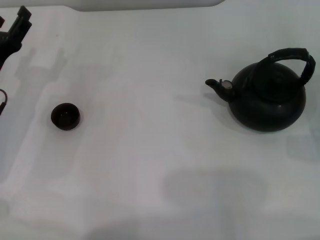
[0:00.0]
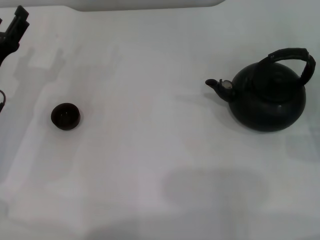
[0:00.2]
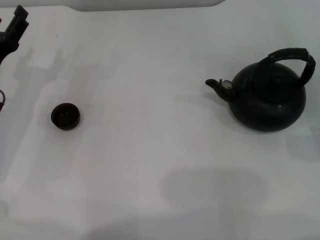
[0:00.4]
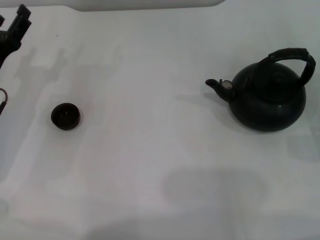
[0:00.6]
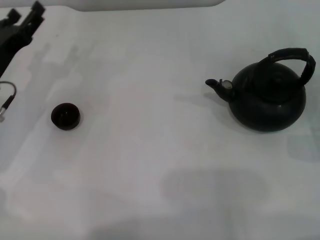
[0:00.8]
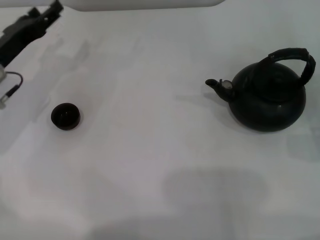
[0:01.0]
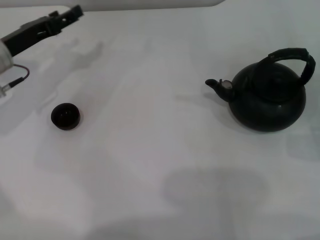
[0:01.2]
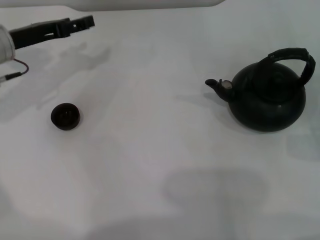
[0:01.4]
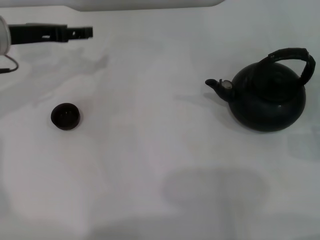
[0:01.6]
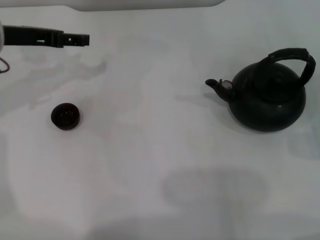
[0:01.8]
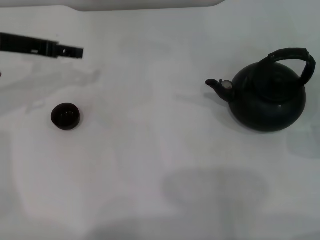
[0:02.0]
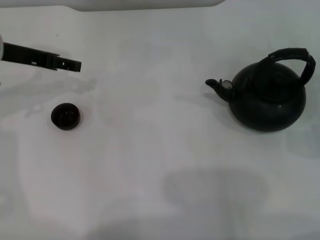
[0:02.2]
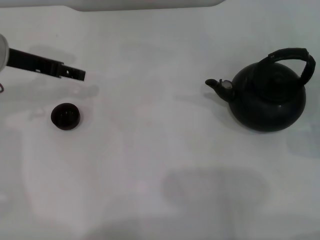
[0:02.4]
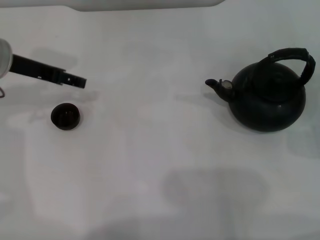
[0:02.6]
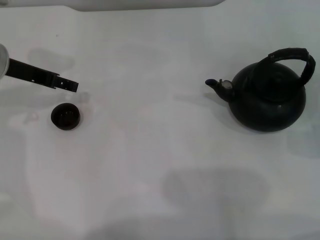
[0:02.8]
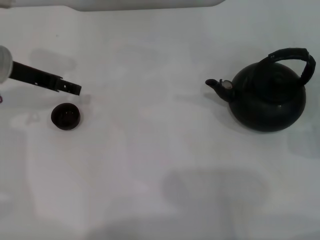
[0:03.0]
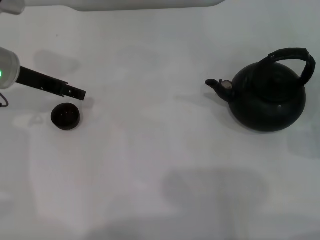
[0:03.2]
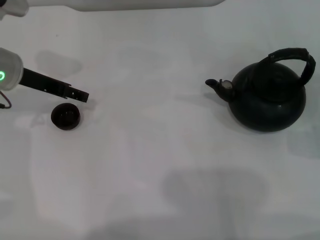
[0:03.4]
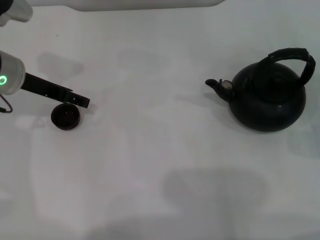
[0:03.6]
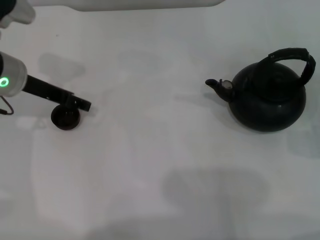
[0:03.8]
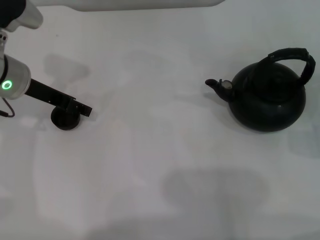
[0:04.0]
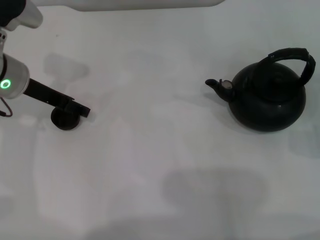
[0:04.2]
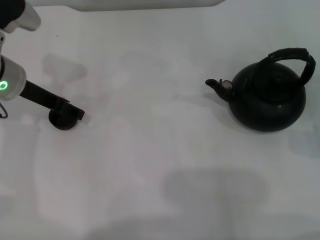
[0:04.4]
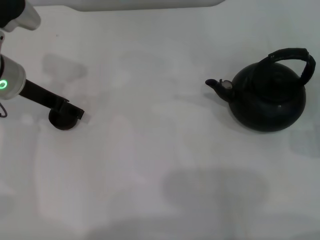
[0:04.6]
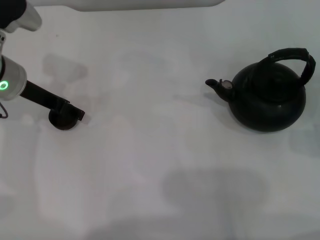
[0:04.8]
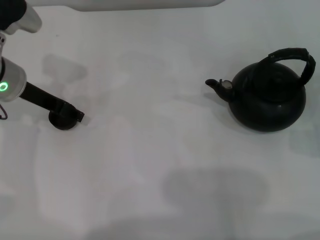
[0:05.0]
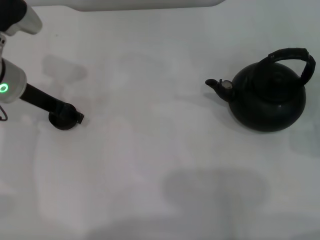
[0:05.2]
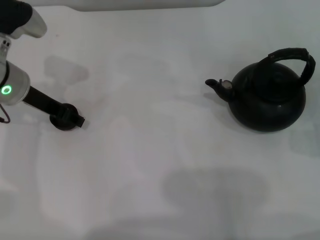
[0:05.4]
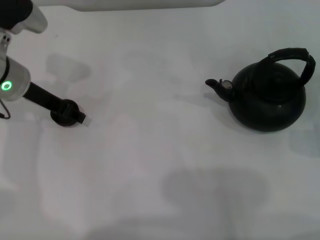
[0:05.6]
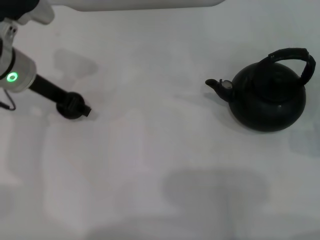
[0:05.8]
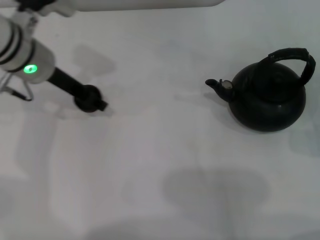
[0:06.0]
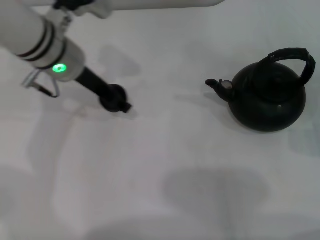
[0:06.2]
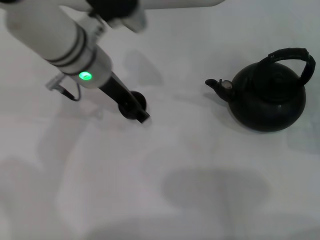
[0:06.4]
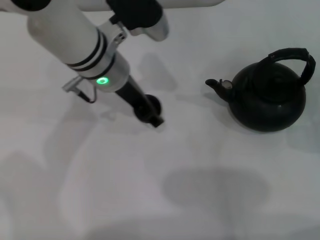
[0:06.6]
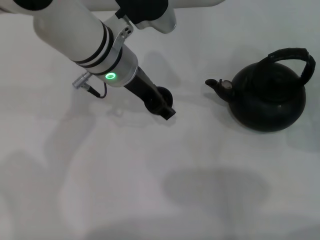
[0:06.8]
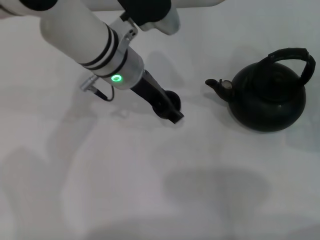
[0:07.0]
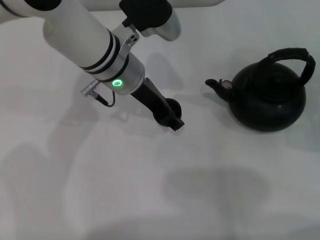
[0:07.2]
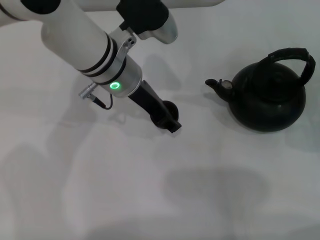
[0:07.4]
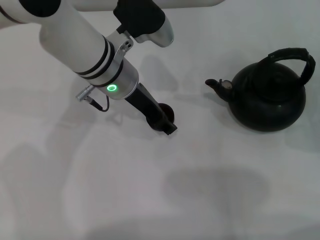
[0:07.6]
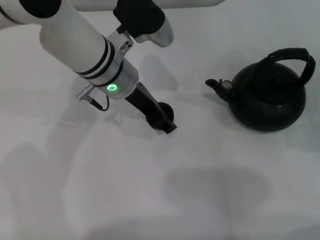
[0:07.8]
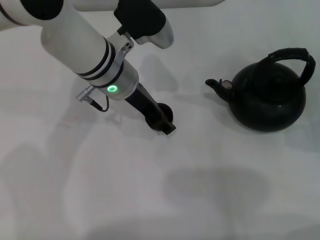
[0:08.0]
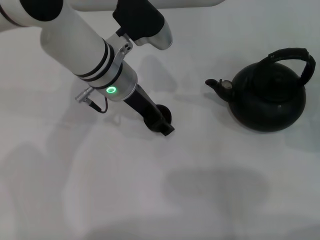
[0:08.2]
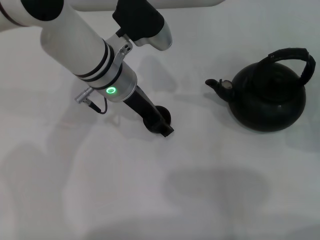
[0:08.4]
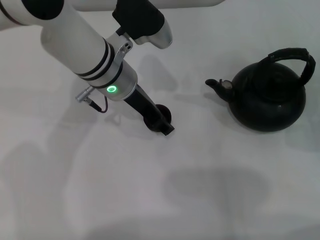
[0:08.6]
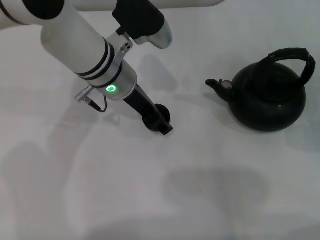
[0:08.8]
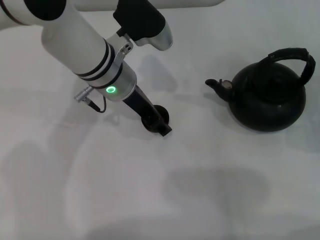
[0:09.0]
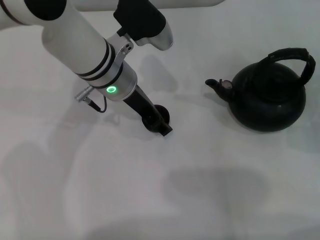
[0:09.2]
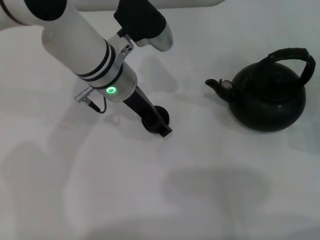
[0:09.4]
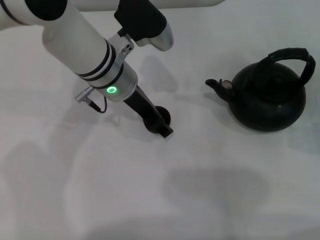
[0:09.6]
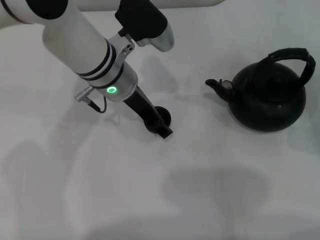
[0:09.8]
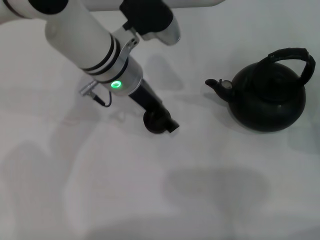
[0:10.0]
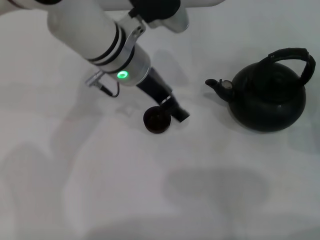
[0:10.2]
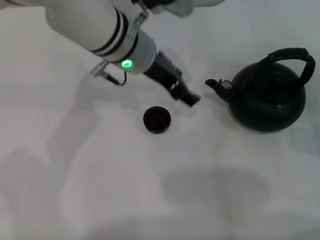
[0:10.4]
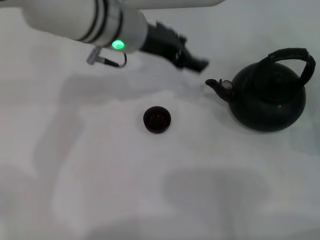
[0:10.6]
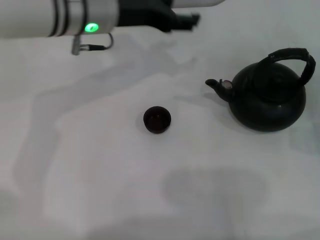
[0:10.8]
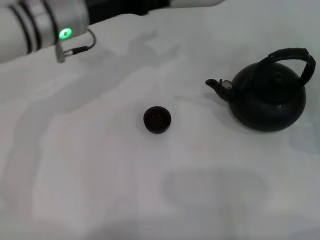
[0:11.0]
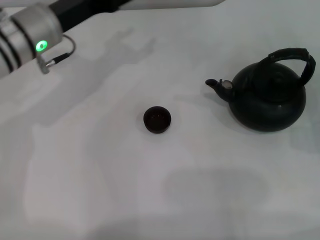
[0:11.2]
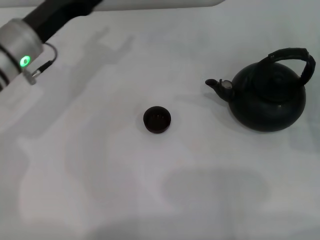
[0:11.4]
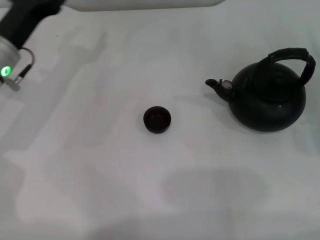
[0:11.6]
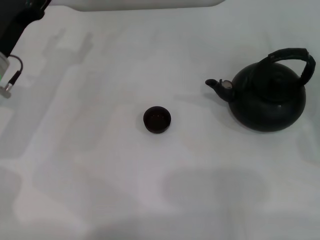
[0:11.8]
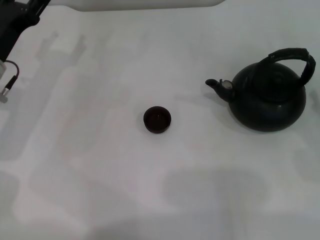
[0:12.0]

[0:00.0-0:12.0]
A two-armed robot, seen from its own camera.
Task of the whole recording: Grasp the handle of the teapot with one hand and pour tea into the teacup.
Step, 0:00.0 to 0:05.6: Pick up the teacup with the left gripper.
Step, 0:05.8 to 0:10.2: Place the teacup in the center of view with the left gripper.
0:00.0 to 0:01.6: The left gripper moves upward and forward, roughly 15 cm.
0:03.0 to 0:04.4: There are only small adjustments of the grippers.
0:04.4 to 0:06.0: The left gripper shifts by approximately 5 cm, and closes.
0:06.0 to 0:07.6: The left gripper shifts some 10 cm to the right.
0:07.6 to 0:09.0: The two grippers keep their place.
0:09.0 to 0:10.4: The left gripper opens up.
0:10.4 to 0:12.0: The left gripper shifts some 20 cm to the left and downward.

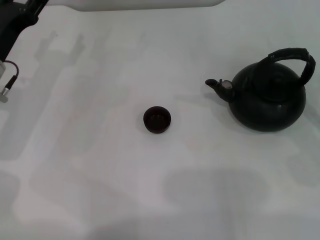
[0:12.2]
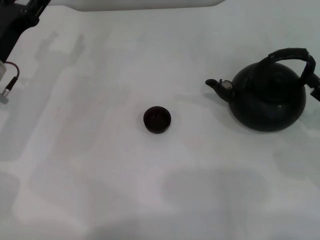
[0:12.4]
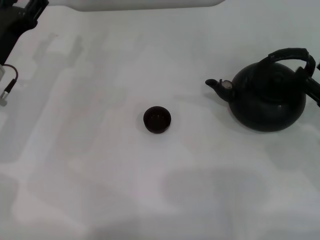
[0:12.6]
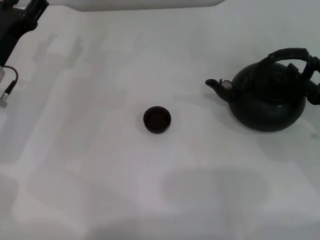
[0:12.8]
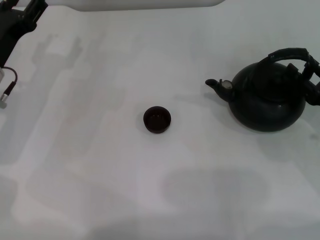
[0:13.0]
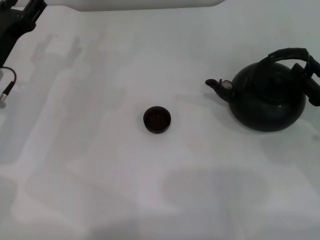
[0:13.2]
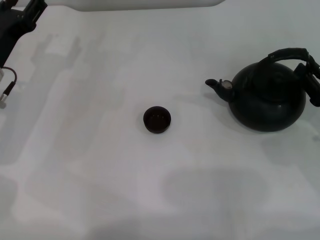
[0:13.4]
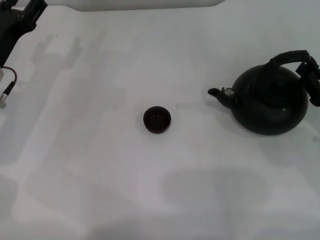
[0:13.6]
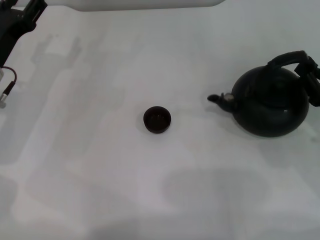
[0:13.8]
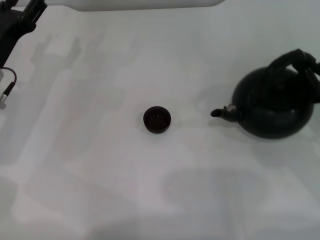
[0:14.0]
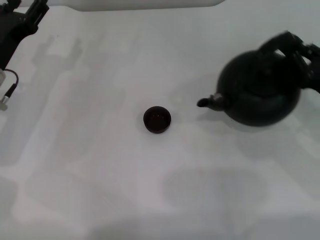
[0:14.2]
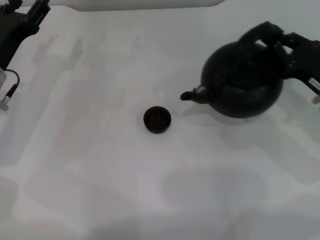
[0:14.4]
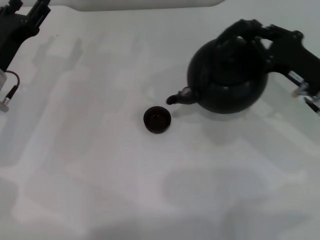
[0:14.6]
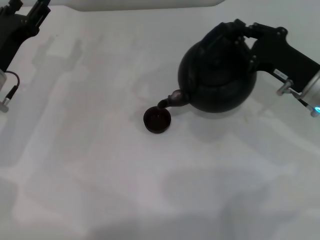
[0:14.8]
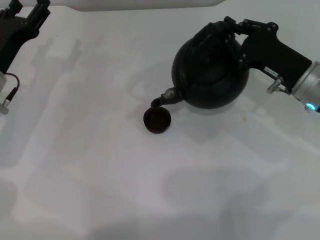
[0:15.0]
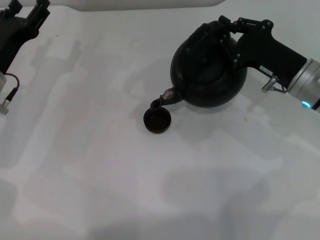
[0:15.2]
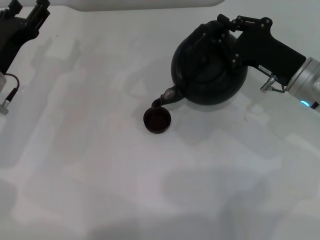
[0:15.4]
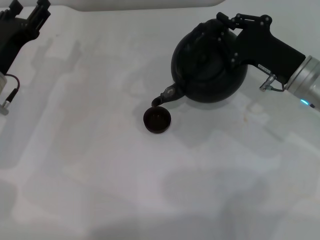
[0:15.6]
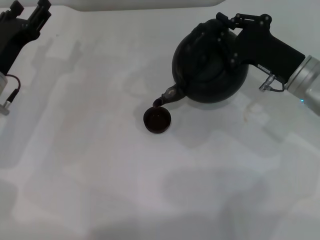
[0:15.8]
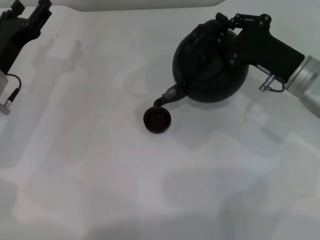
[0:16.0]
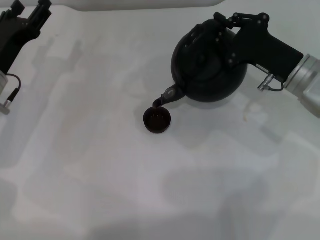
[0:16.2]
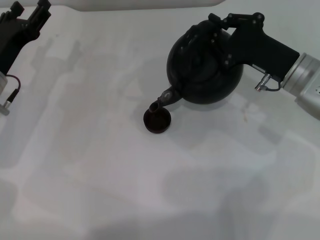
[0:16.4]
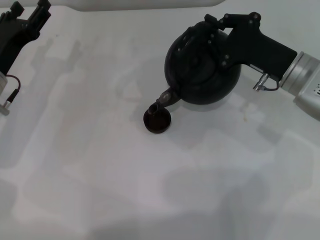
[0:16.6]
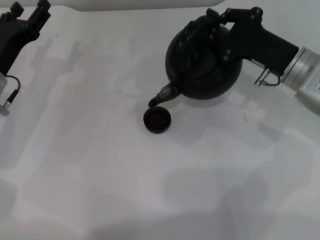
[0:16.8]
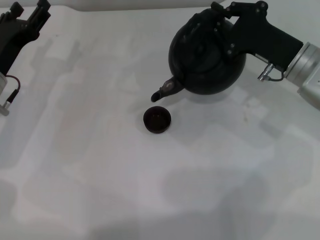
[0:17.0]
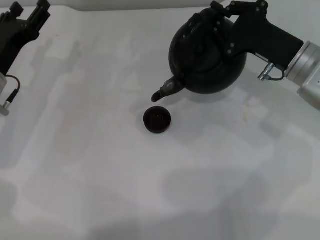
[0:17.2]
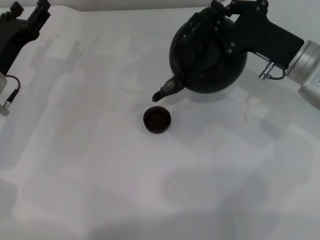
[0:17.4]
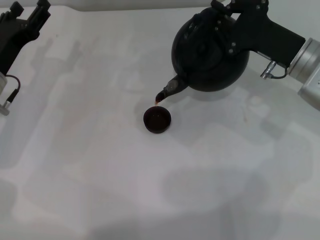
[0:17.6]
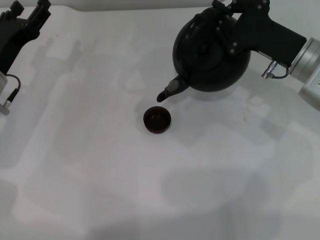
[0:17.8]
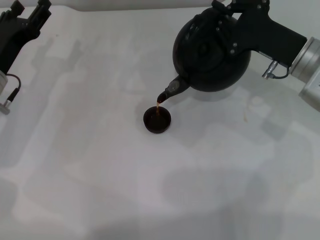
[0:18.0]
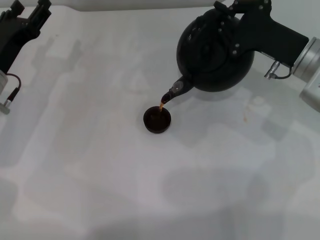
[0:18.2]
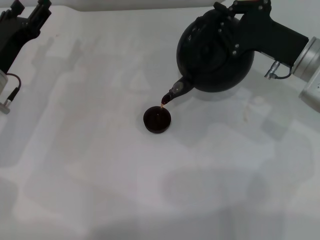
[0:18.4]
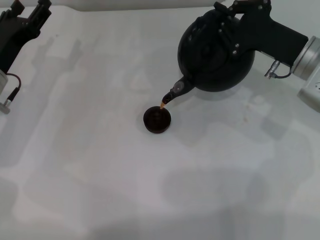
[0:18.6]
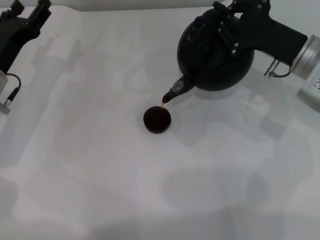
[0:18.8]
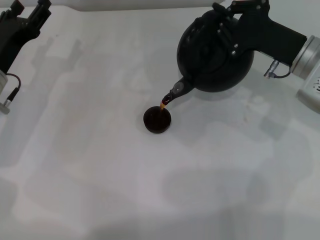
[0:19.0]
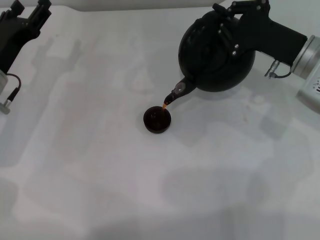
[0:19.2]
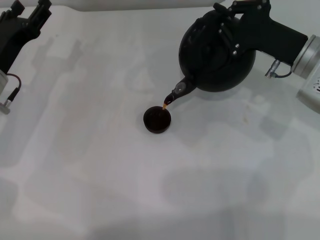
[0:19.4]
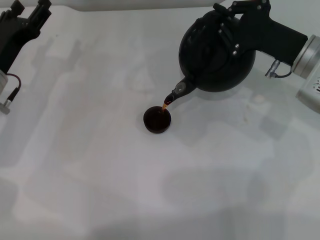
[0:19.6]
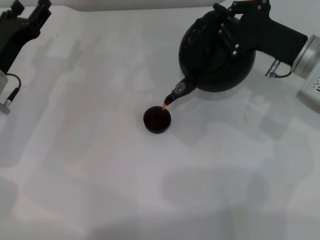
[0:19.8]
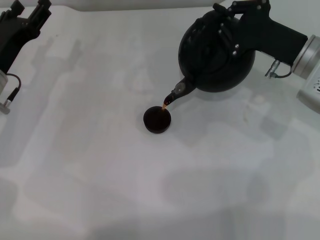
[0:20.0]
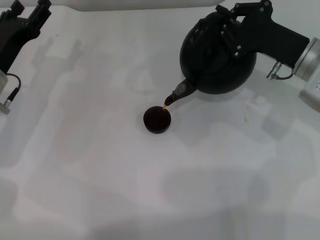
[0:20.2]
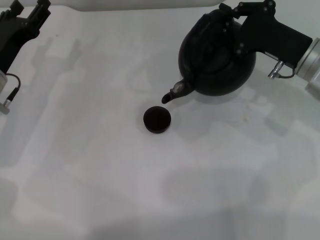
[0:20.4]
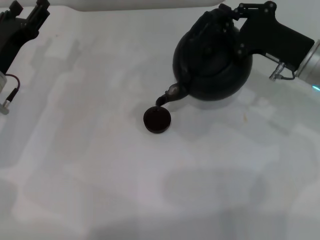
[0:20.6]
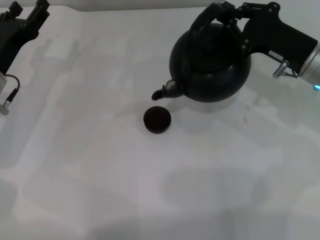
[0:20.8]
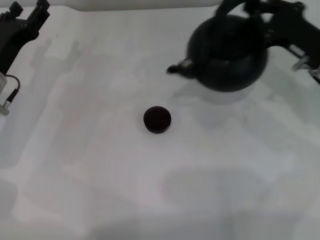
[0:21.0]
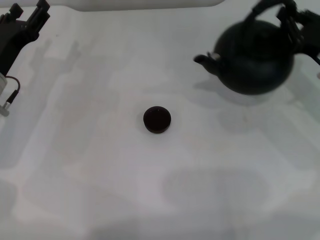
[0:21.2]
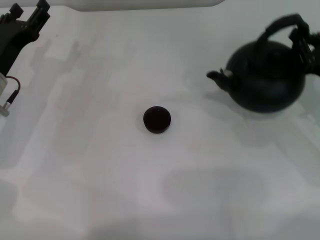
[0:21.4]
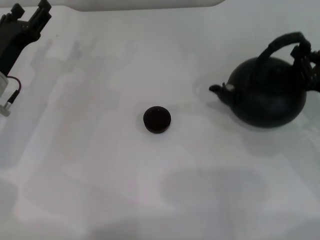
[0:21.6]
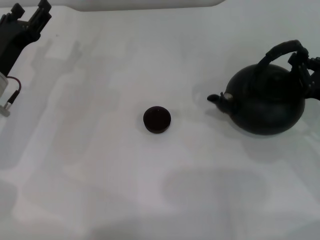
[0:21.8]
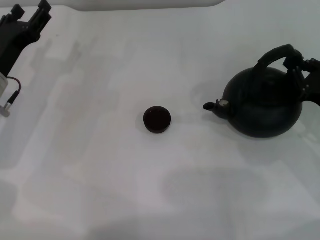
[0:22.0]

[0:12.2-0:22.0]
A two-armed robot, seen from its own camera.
Task of the whole recording: Grasp the handle of the teapot with one hand and pour tea into the teacup.
Step, 0:12.2 to 0:14.0: Pick up the teapot with the right gripper.
Step, 0:14.4 to 0:20.8: Pour tea into the teacup with the right gripper.
0:12.2 to 0:13.6: The right gripper moves some 5 cm, and closes up.
0:13.6 to 0:15.0: The right gripper goes approximately 10 cm to the left and forward.
0:15.0 to 0:16.4: There are only small adjustments of the grippers.
0:16.4 to 0:20.6: There are only small adjustments of the grippers.
0:20.6 to 0:22.0: The right gripper shifts roughly 10 cm backward, to the right and downward.
